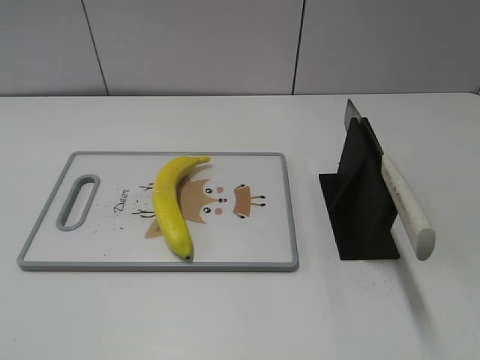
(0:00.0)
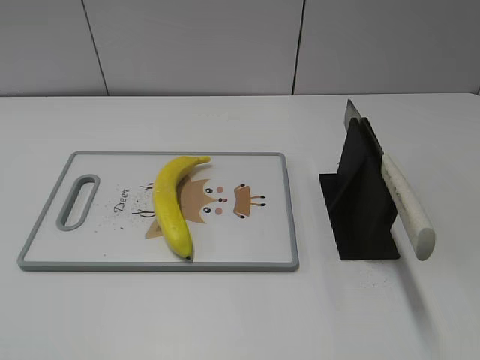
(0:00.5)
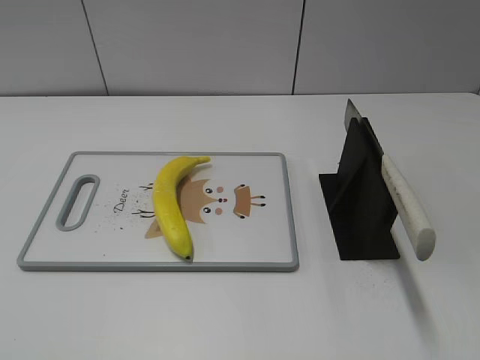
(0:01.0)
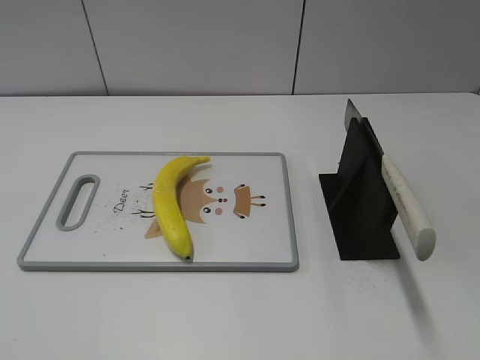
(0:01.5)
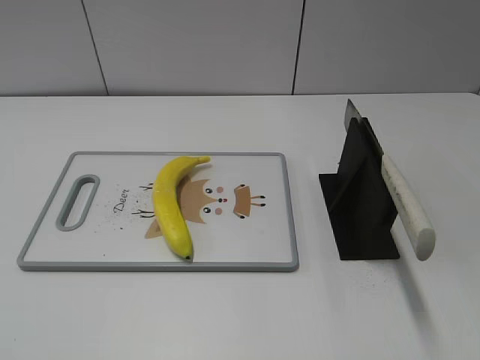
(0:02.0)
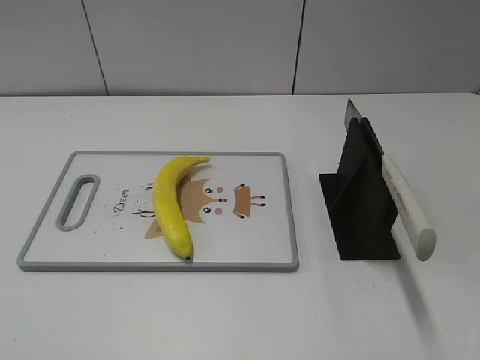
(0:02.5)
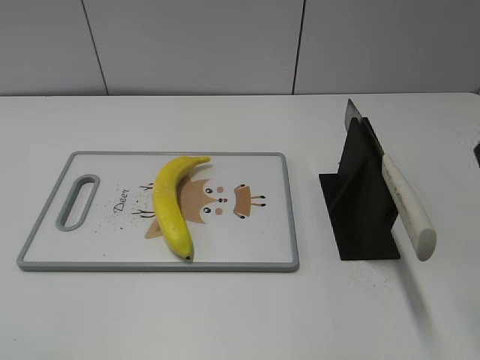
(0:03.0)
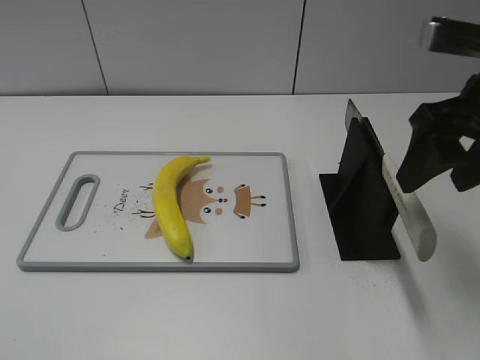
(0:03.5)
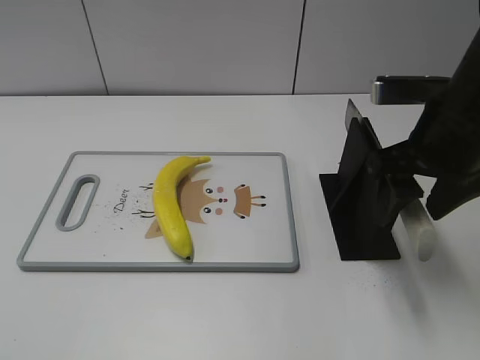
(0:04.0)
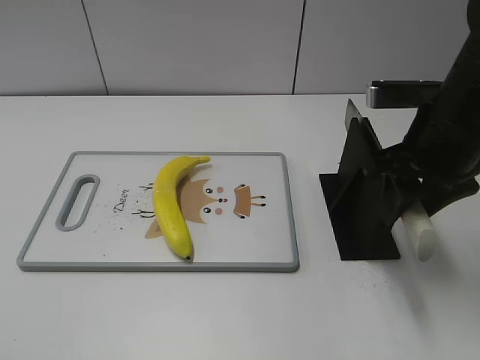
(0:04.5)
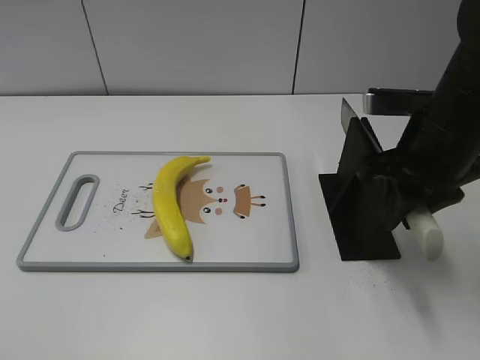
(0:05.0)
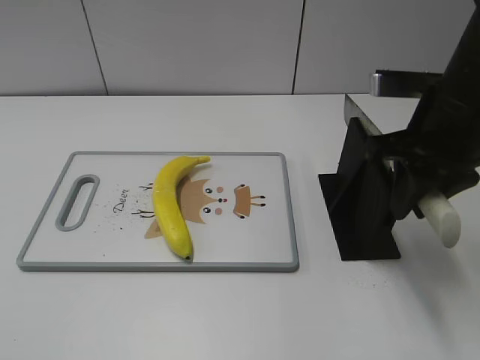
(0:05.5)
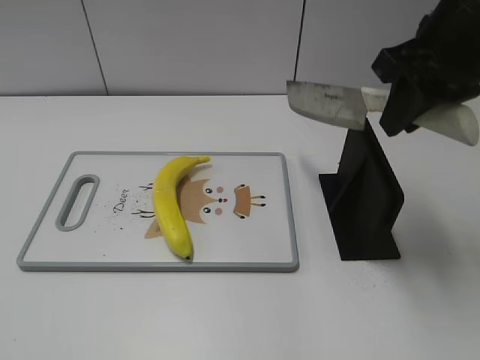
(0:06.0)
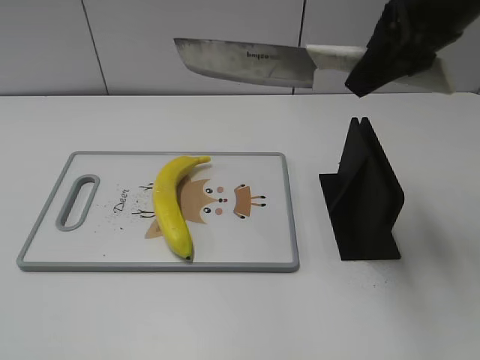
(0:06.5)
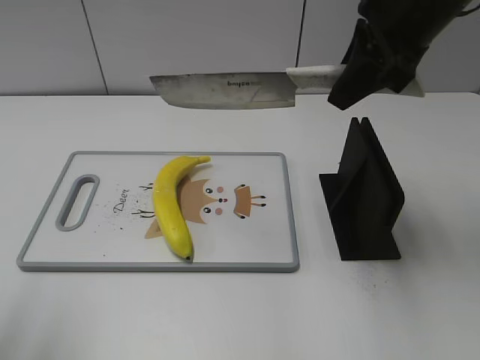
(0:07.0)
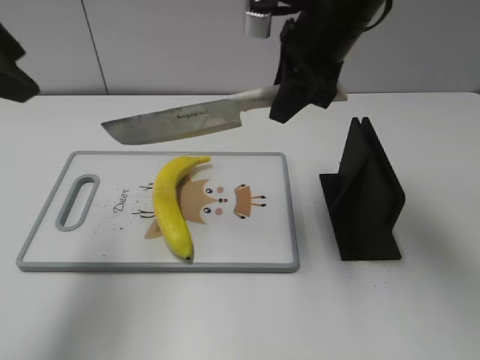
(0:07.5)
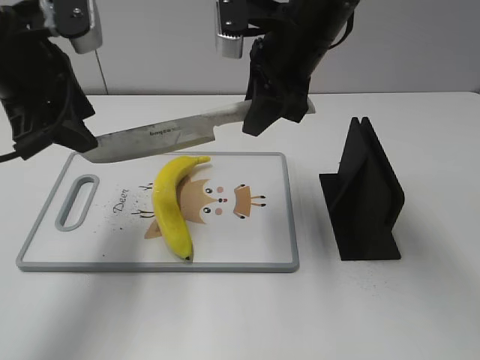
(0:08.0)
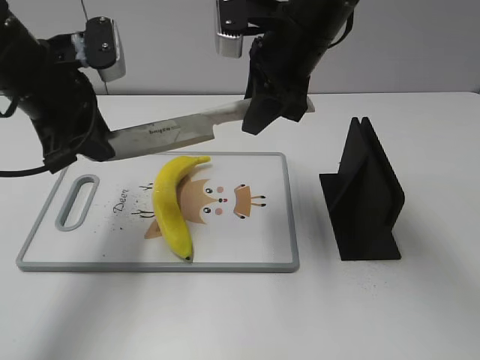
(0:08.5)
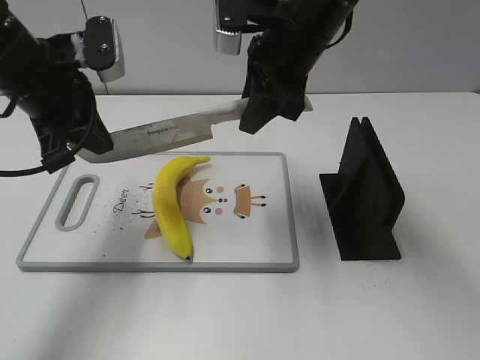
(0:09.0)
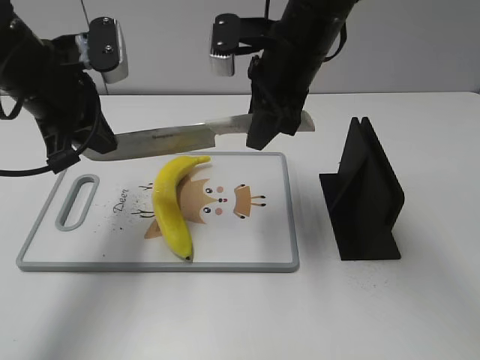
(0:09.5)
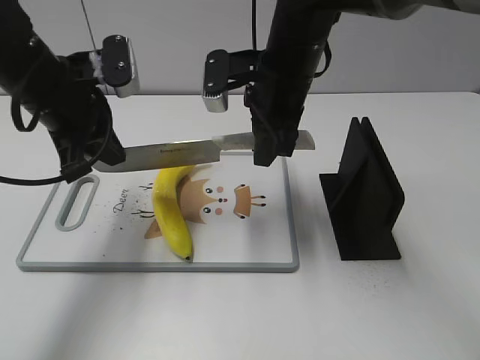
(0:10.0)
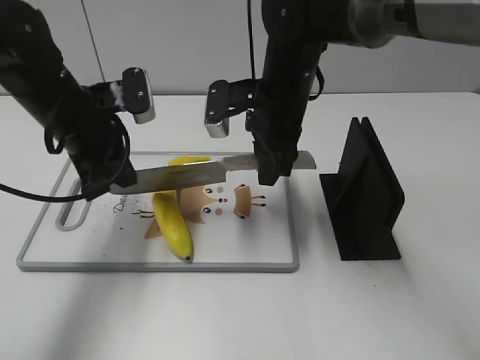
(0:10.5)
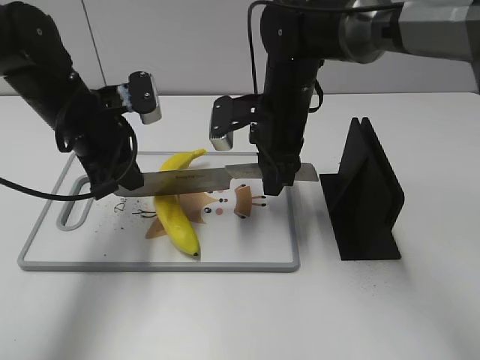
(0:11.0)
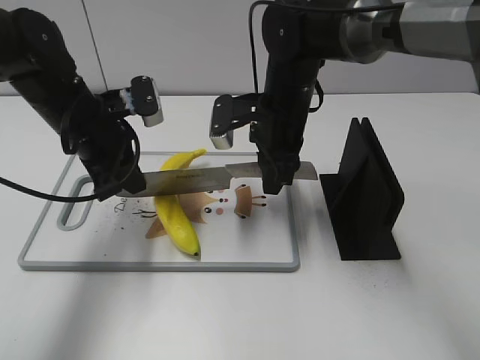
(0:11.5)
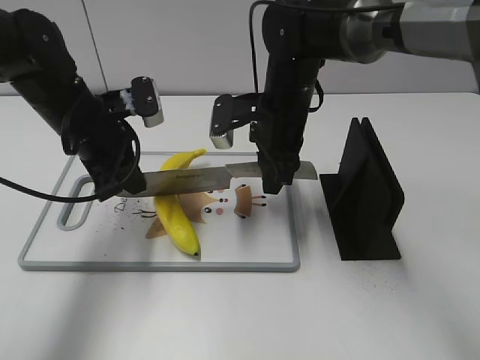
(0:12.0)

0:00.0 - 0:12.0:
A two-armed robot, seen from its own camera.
Task of the whole recording: cut plastic banana.
Step, 0:00.0 - 0:06.5: Grab the knife handle with your right hand.
Step, 0:07.0 - 0:11.0: Hold the blade with your left hand.
0:02.0 - 0:04.0: The right gripper travels forward and to the left by some 25 cm.
0:04.0 - 0:06.0: The right gripper moves upward, approximately 10 cm, and closes up.
0:06.0 - 0:08.0: The right gripper goes approximately 15 cm to the left, forward and downward. The left gripper moves forward, some 30 cm.
0:08.0 - 0:10.0: The left gripper moves downward, about 5 cm, and closes.
0:10.0 - 0:12.0: The two grippers go roughly 5 cm downward.

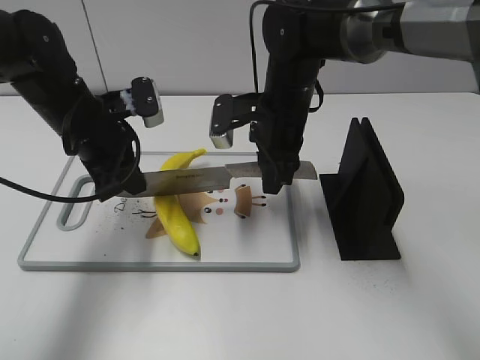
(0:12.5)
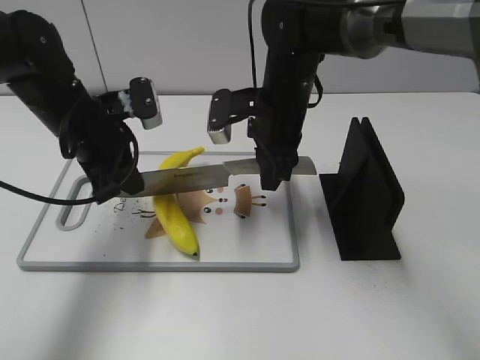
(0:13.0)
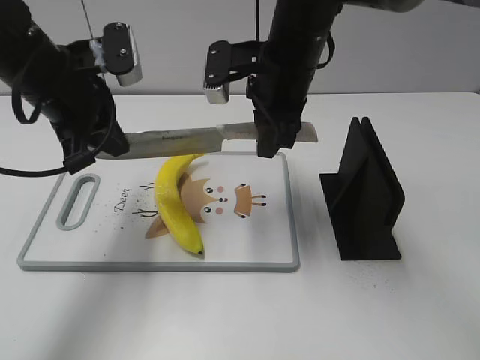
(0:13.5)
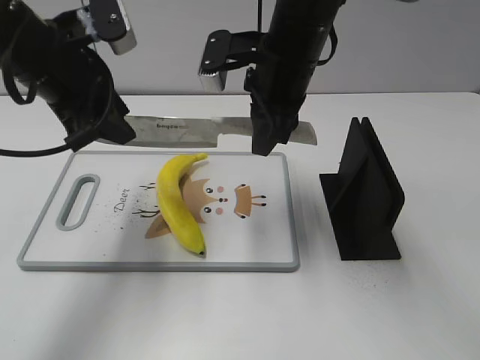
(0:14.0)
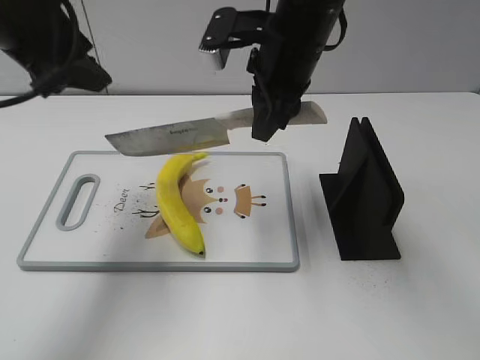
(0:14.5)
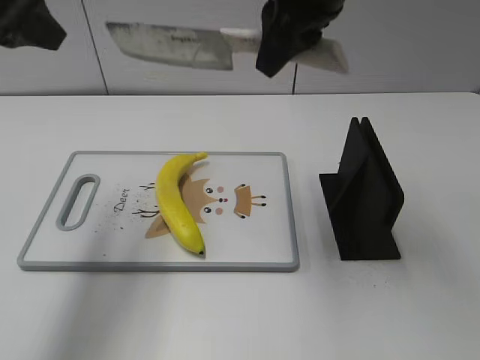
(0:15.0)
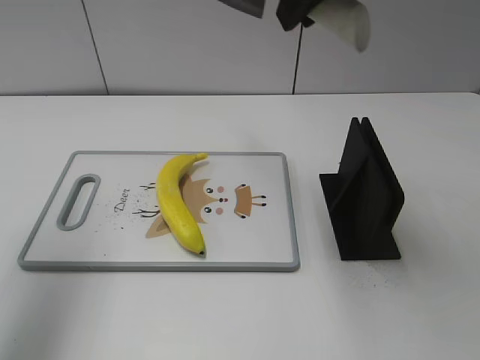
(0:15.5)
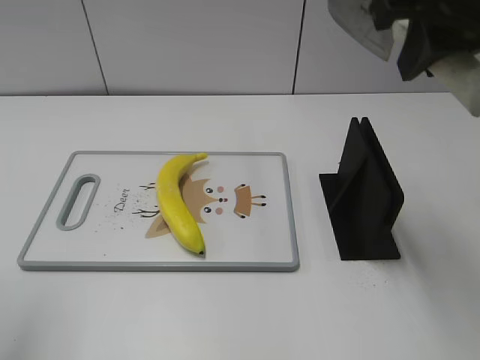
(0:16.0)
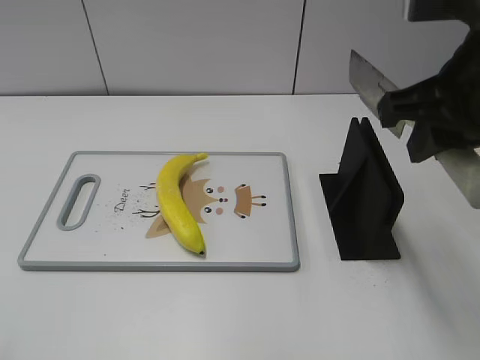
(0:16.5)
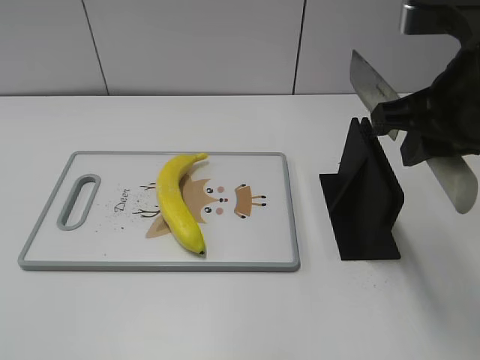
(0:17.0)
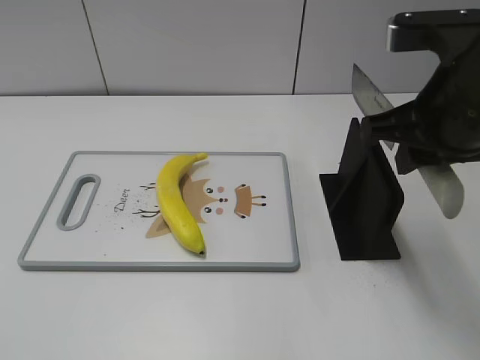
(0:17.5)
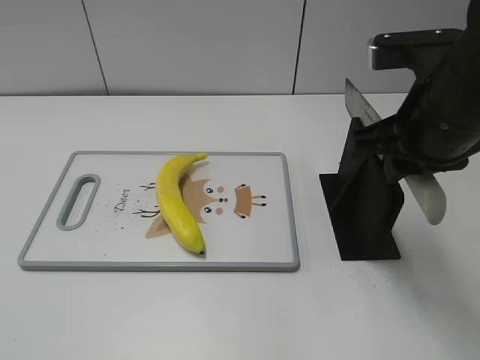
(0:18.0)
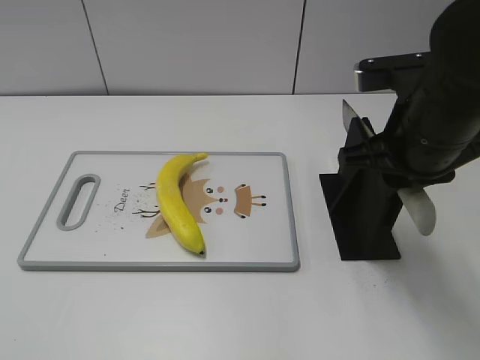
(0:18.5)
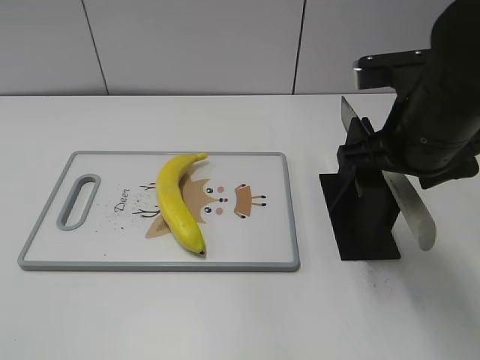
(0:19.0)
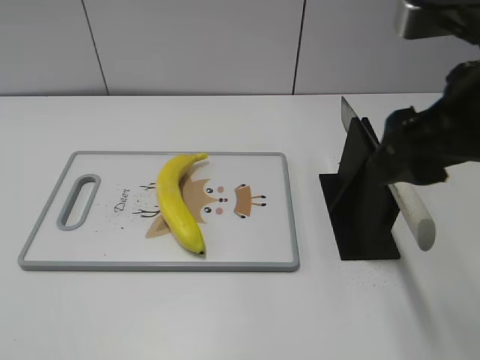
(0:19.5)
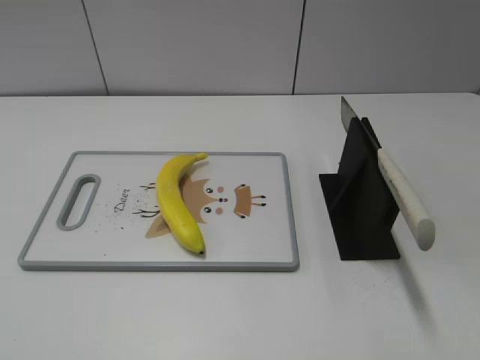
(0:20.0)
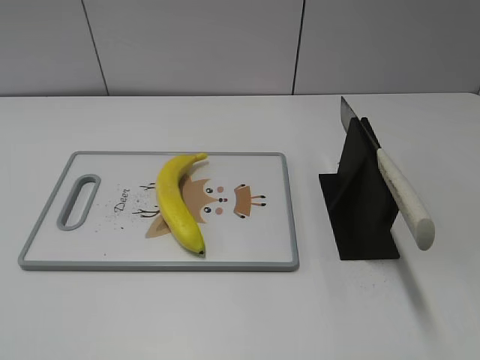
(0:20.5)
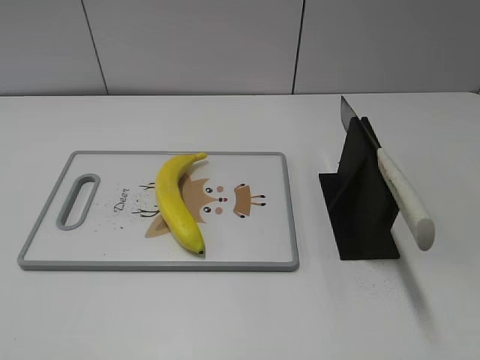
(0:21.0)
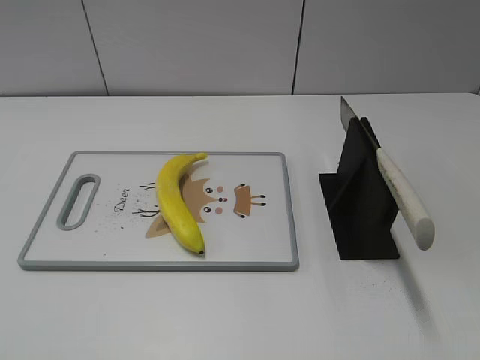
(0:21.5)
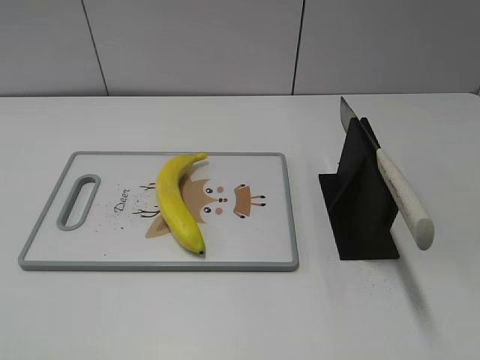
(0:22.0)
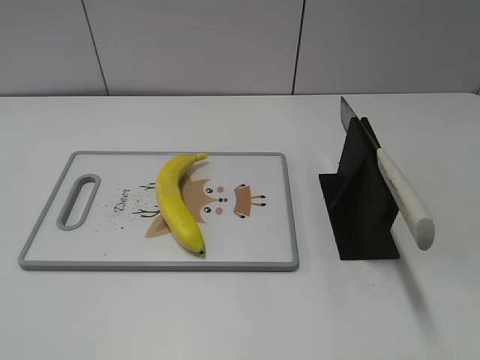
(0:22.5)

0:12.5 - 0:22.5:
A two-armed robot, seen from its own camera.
Task of the whole recording: cut plastic banana.
Step, 0:12.5 - 0:16.0: Cut the banana with your right hand.
Step, 0:16.5 - 0:17.0: Secure the blade with your left hand.
Step, 0:17.5 - 0:22.5: Place the knife on the storage rack with your right hand.
0:12.5 - 0:14.5: The right gripper is displaced upward by about 10 cm. Meanwhile the left gripper shifts roughly 15 cm upward, and opens.
0:14.5 - 0:16.5: The right gripper goes some 20 cm backward, to the right and upward; the left gripper shifts about 25 cm backward and to the left.
0:16.5 - 0:18.5: The right gripper travels downward by about 10 cm.
0:18.5 - 0:20.5: The right gripper heads backward and to the right, covering about 25 cm, and opens up.
